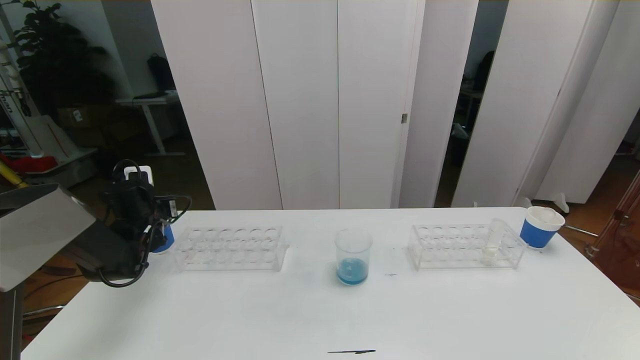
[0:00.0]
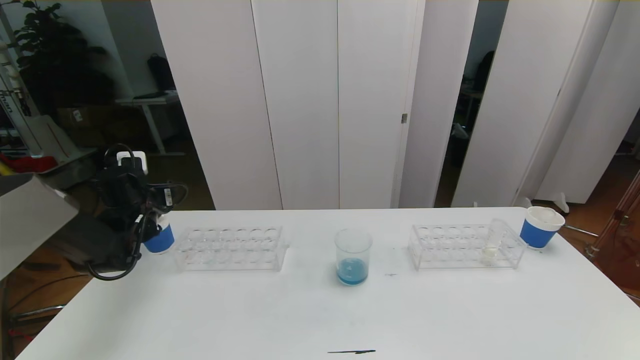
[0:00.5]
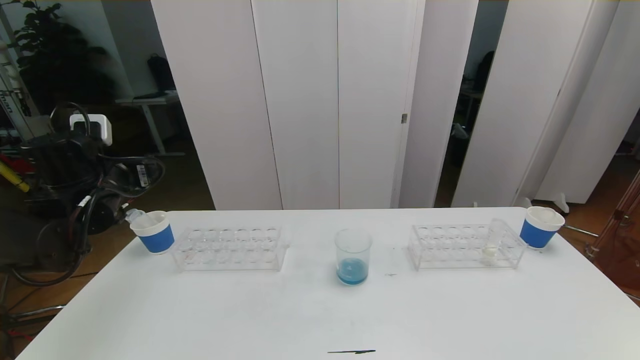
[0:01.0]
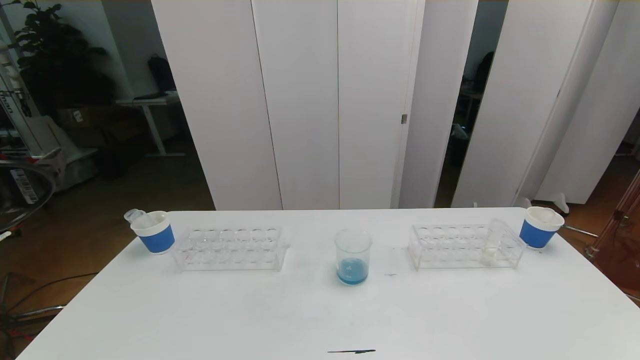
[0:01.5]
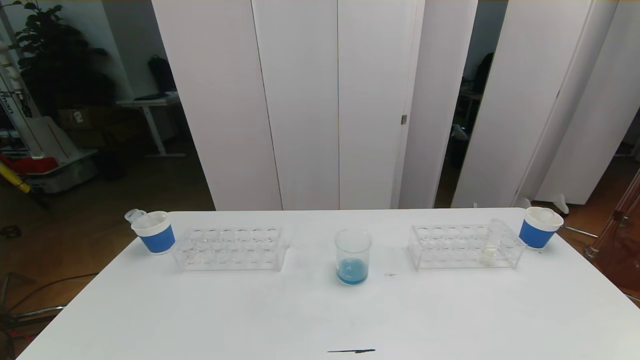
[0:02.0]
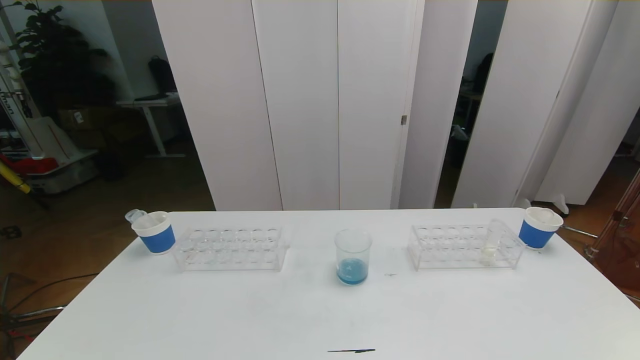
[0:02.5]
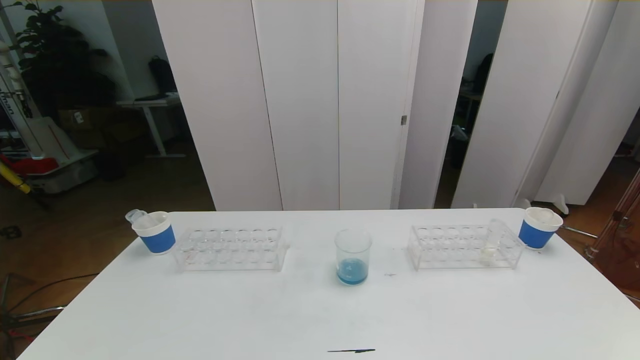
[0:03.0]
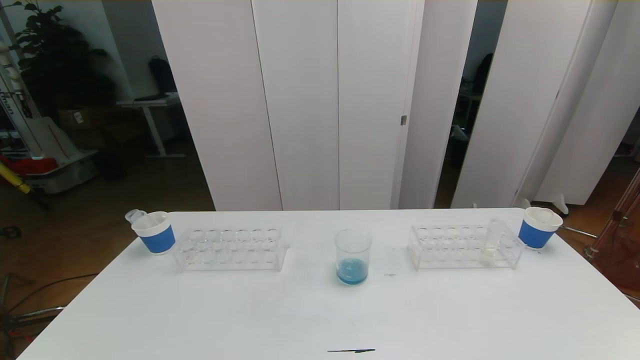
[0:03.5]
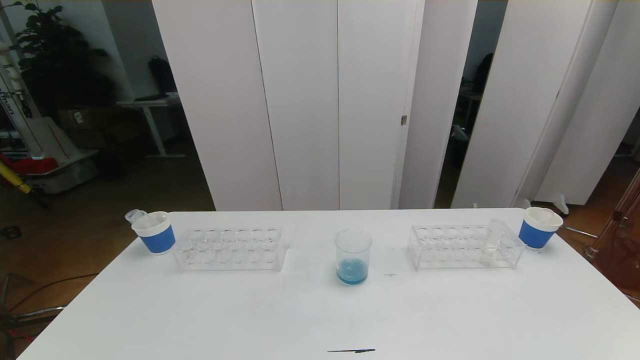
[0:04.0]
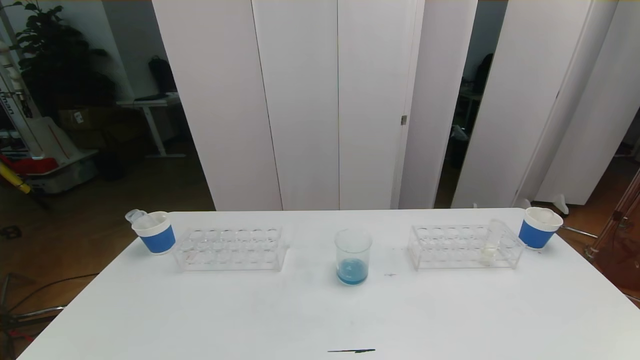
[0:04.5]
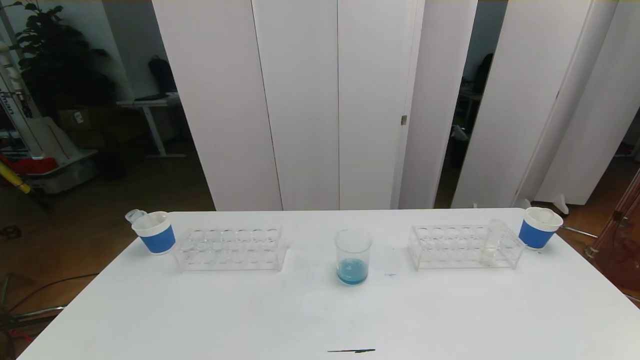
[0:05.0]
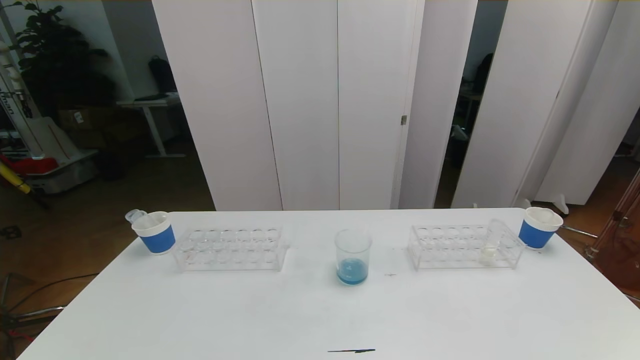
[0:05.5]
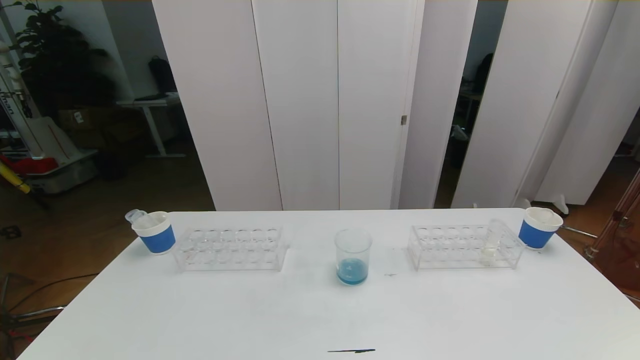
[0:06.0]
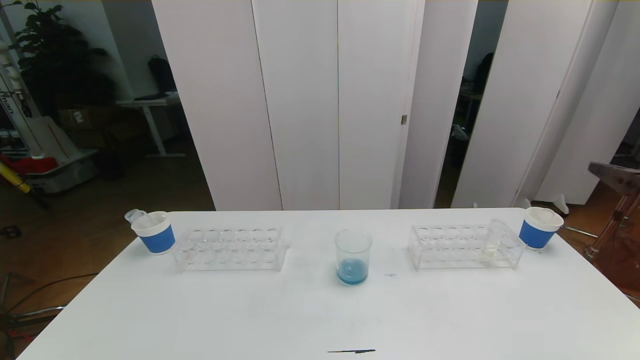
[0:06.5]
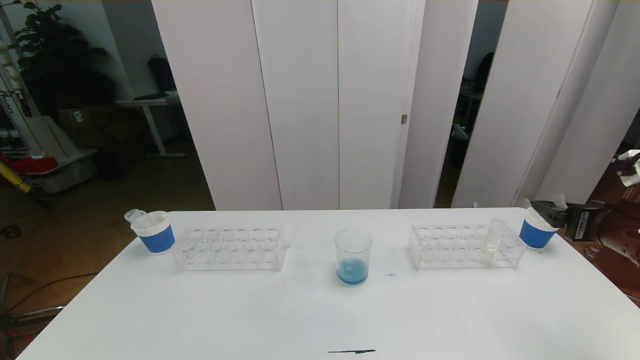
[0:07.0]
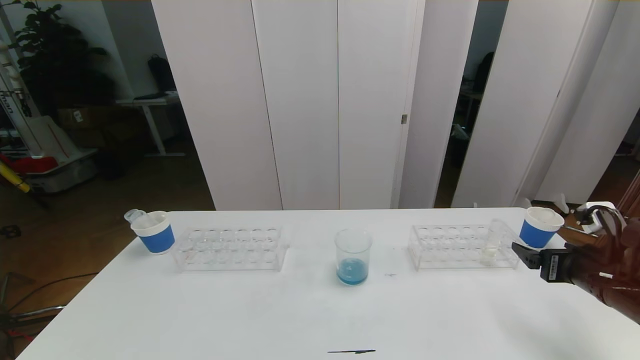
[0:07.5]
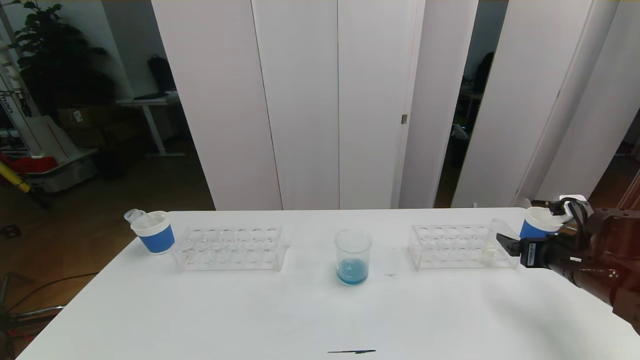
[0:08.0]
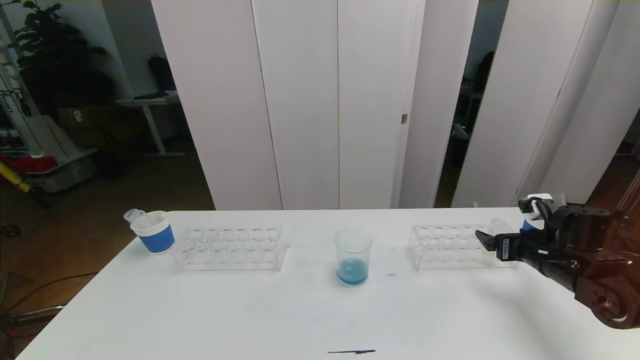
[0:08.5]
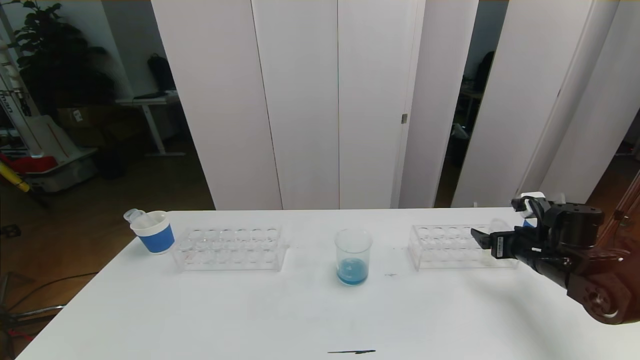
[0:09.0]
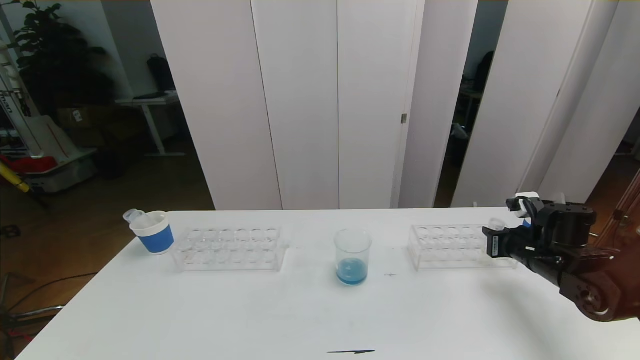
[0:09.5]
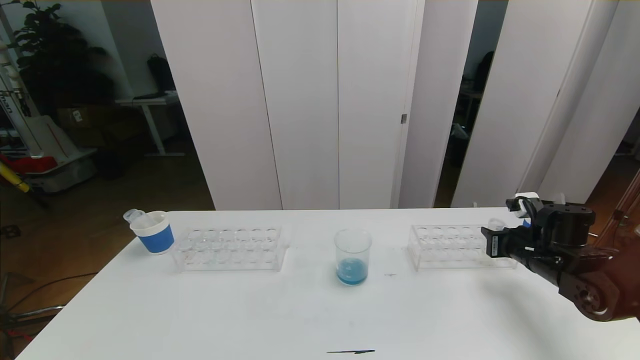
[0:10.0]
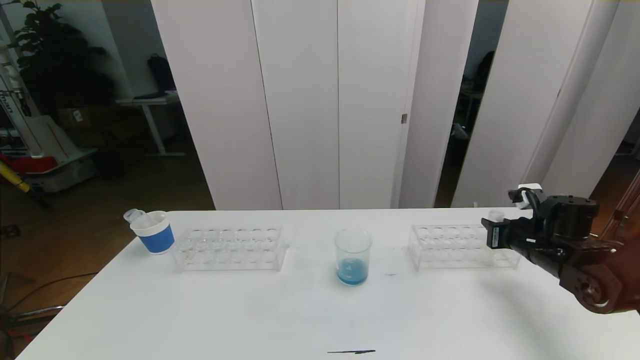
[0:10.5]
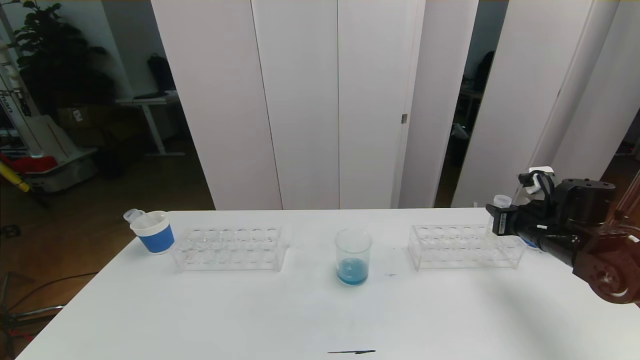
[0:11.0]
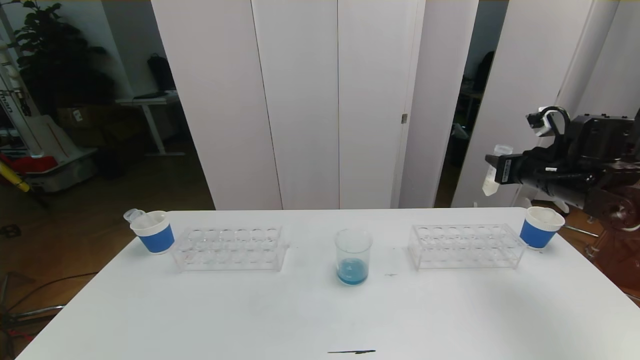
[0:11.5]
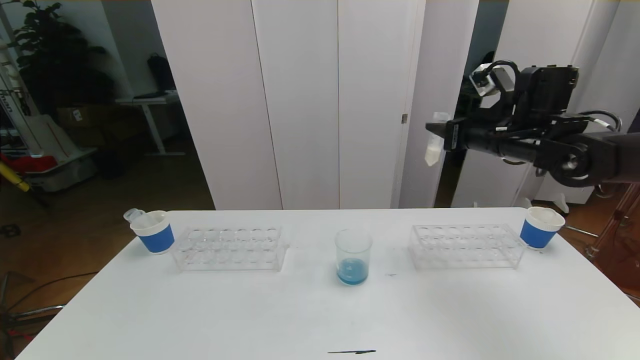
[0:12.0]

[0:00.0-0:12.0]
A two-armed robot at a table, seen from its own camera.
Task of the whole recording: pick up the test tube with red pigment the test tube with blue pigment and the test tube with white pigment by grippers and pour them into the beaker.
Step, 0:00.0 to 0:03.5: Pour the orange reagent into the graduated cylinder and place the test tube into the paper cup.
0:00.0 to 0:02.0: The left gripper goes approximately 40 cm backward and upward.
0:06.0 to 0:08.0: The right gripper heads forward and downward, covering approximately 30 cm.
0:08.0 to 0:10.0: The right gripper moves forward, approximately 5 cm, and closes.
0:10.0 to 0:12.0: The right gripper is displaced upward and to the left by roughly 20 cm.

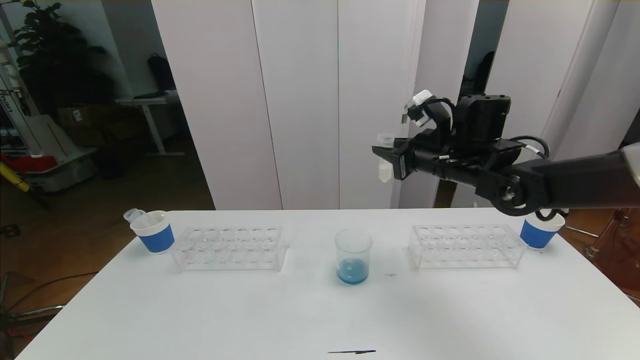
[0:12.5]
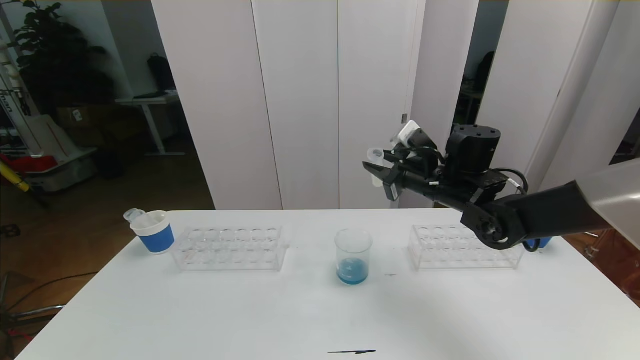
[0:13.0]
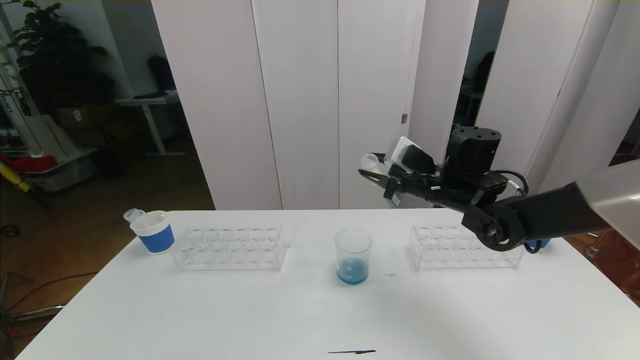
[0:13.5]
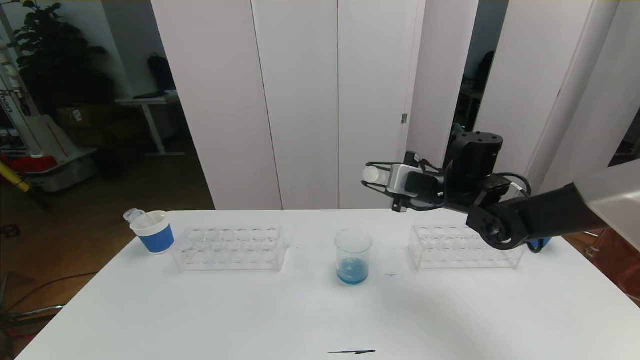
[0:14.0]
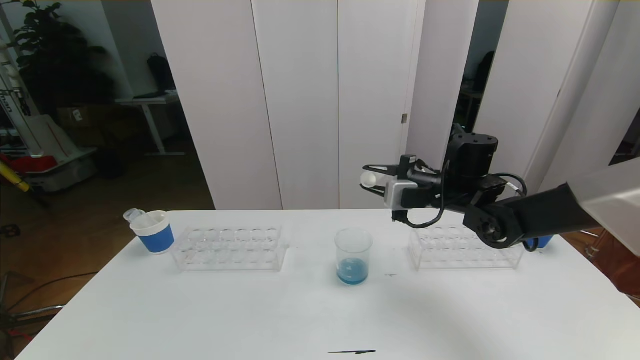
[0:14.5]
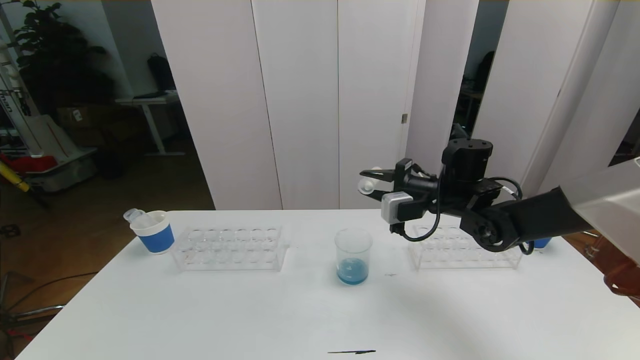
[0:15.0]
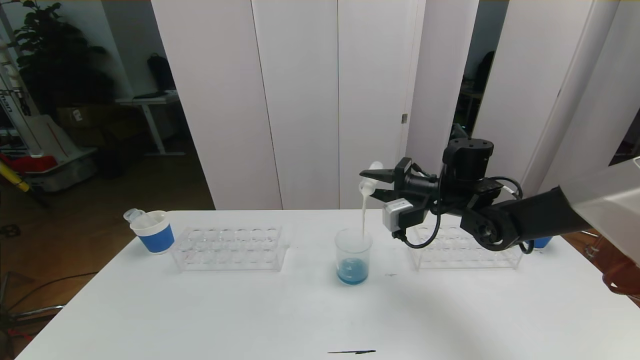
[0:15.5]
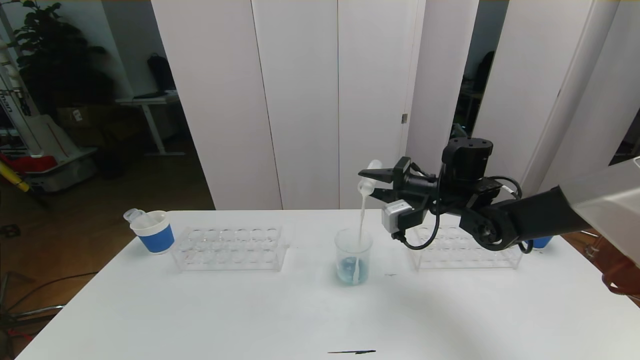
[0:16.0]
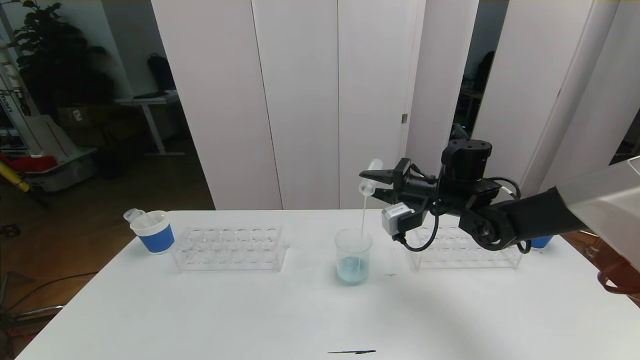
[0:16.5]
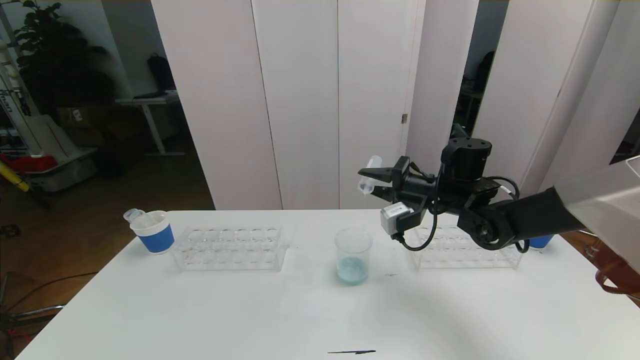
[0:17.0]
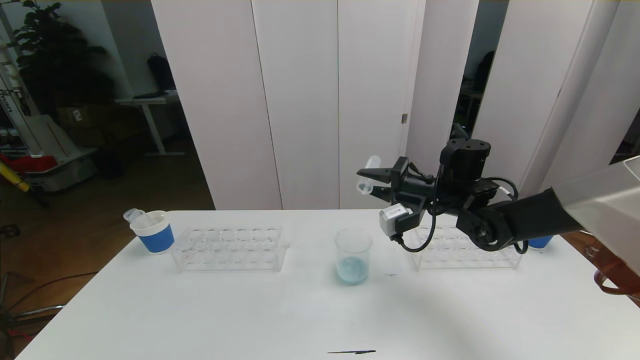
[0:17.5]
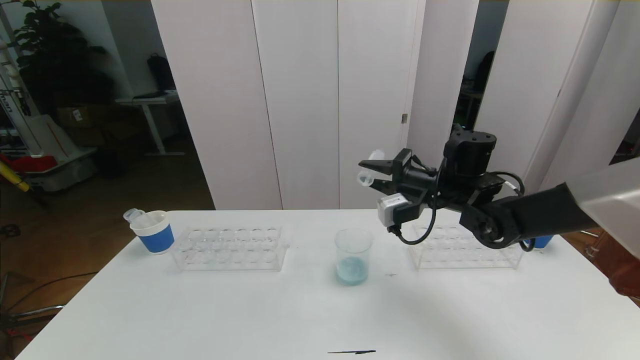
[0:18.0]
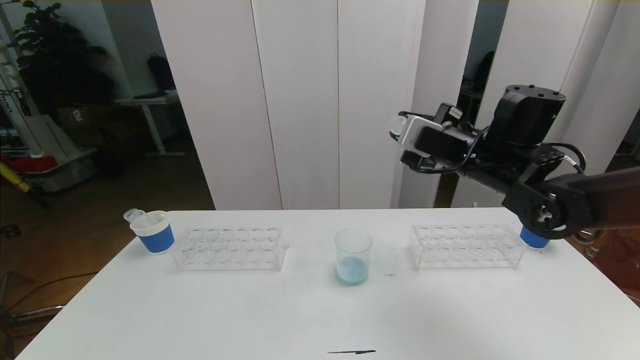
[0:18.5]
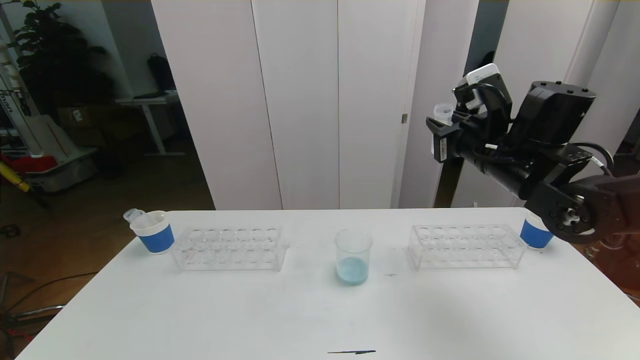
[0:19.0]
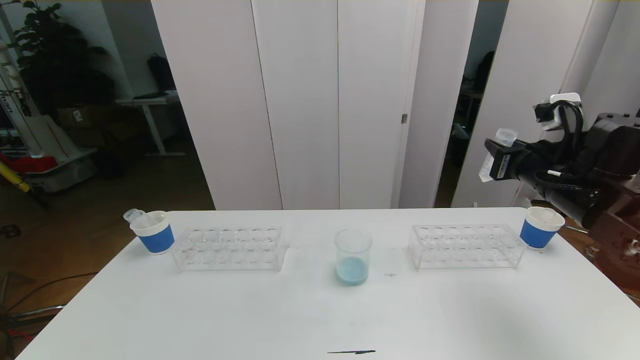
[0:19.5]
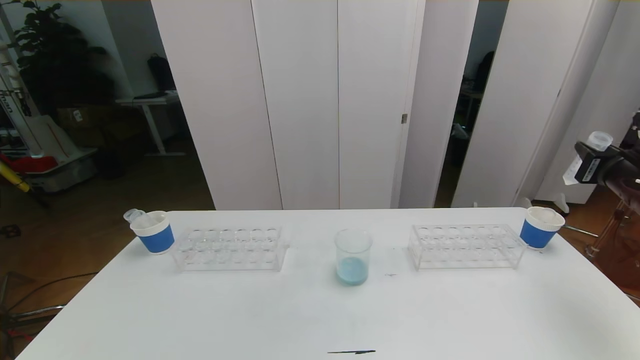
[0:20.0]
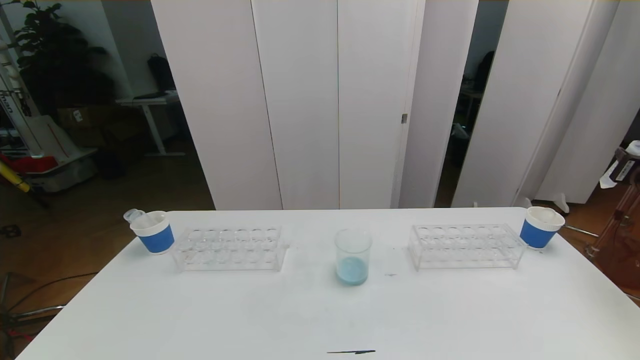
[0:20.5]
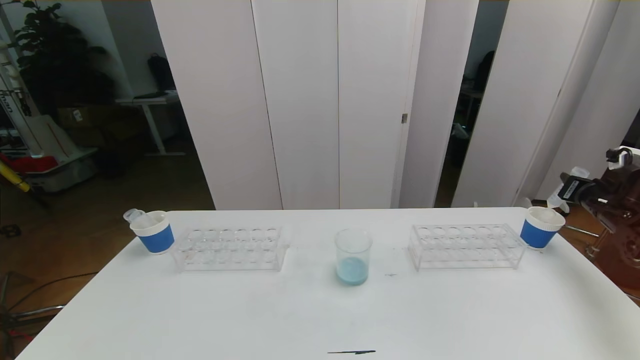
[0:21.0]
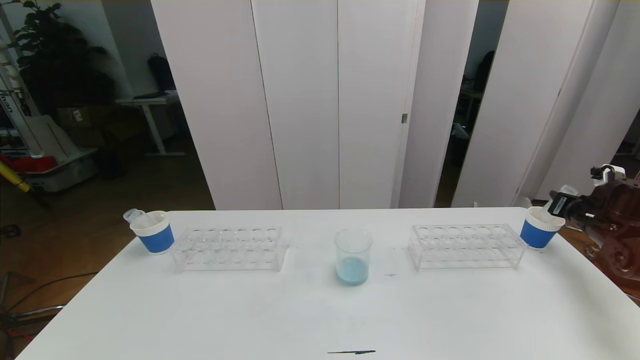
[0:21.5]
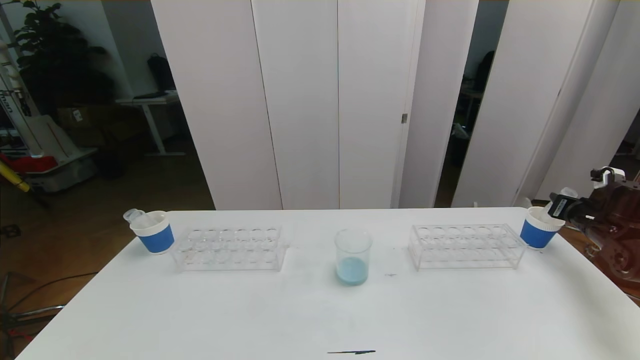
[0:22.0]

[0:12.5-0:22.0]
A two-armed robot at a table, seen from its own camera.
Task of the whole recording: pick up the test tube with red pigment the test tube with blue pigment and the test tube with white pigment by grippers and pour them into the beaker.
0:12.5 to 0:14.5: The right gripper heads downward, covering approximately 5 cm.
0:16.5 to 0:18.0: The grippers make only small movements.
0:18.0 to 0:20.0: The right gripper goes about 25 cm to the right.
0:20.0 to 0:22.0: The right gripper goes approximately 15 cm downward, forward and to the right.
